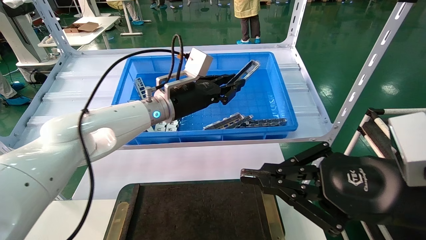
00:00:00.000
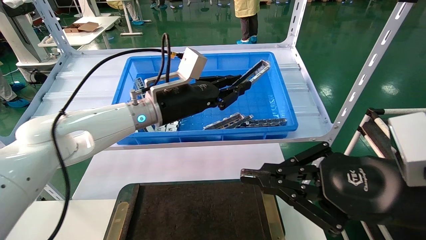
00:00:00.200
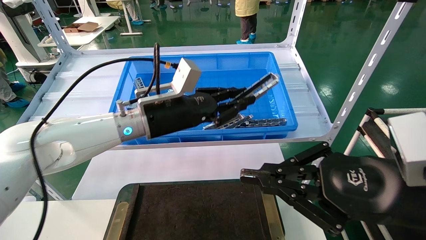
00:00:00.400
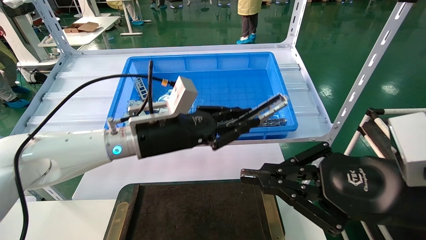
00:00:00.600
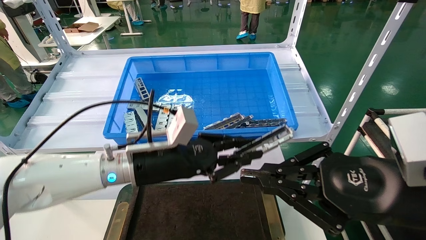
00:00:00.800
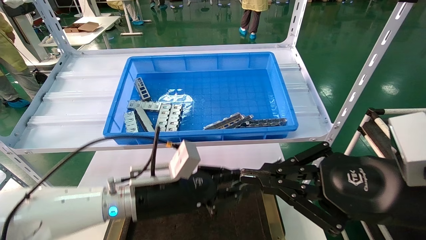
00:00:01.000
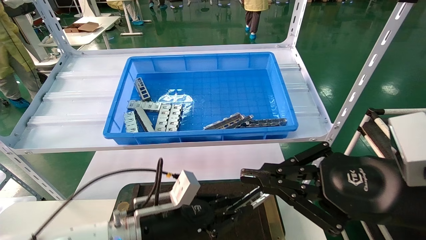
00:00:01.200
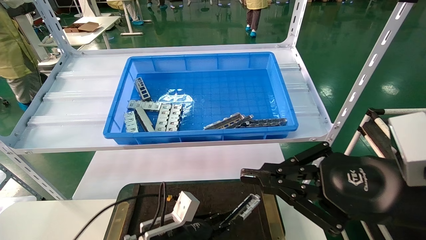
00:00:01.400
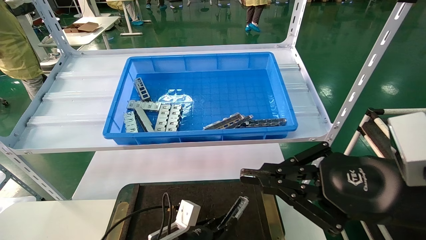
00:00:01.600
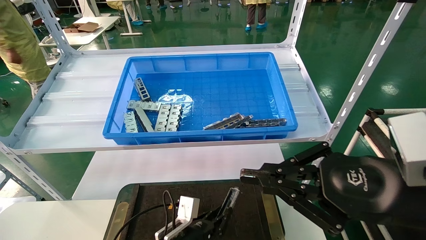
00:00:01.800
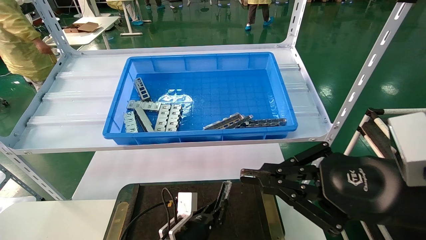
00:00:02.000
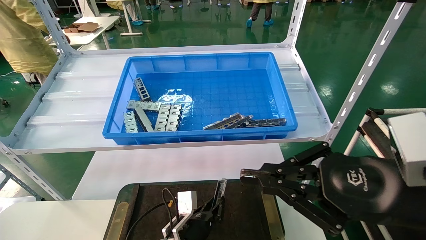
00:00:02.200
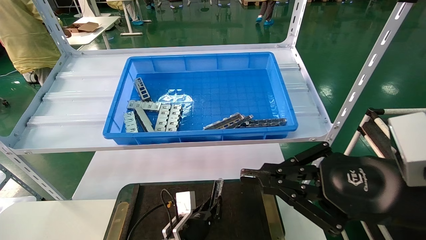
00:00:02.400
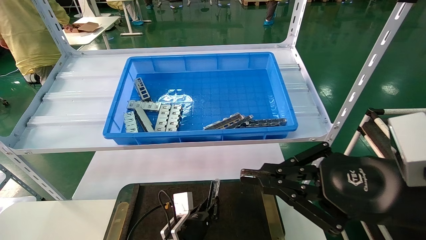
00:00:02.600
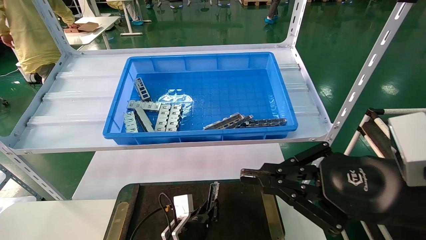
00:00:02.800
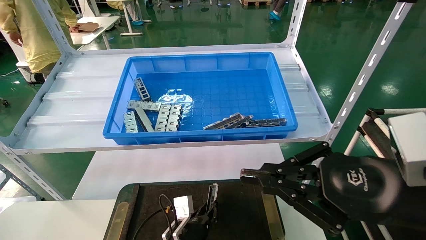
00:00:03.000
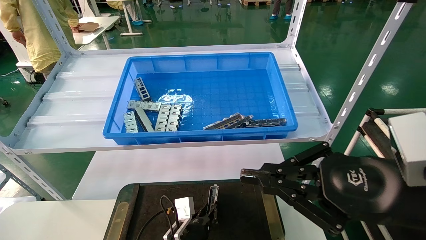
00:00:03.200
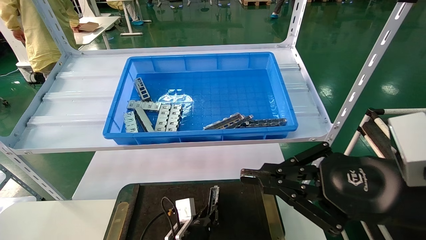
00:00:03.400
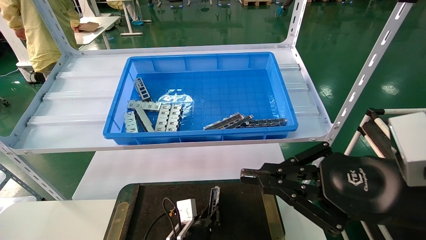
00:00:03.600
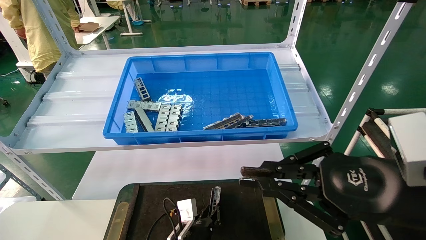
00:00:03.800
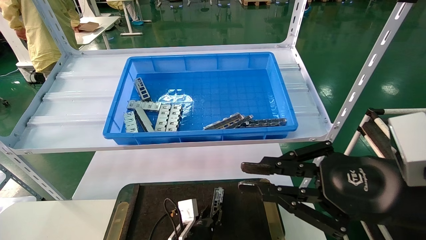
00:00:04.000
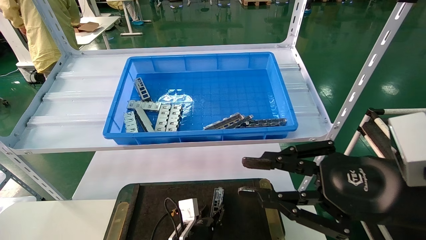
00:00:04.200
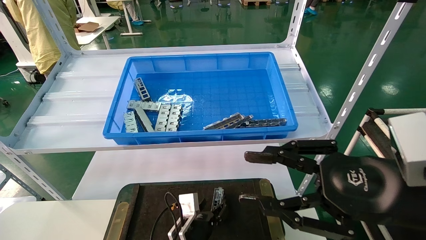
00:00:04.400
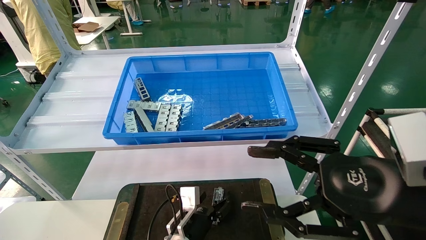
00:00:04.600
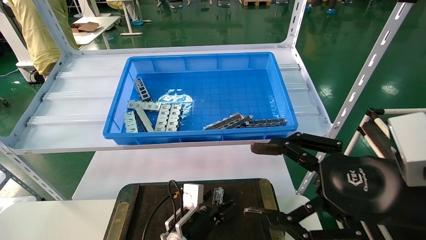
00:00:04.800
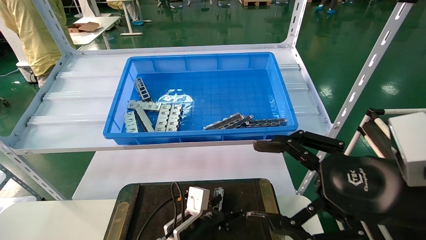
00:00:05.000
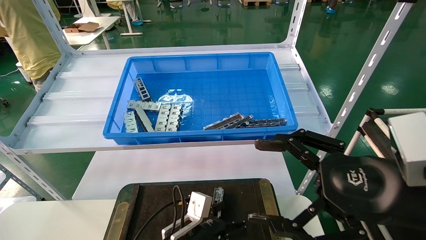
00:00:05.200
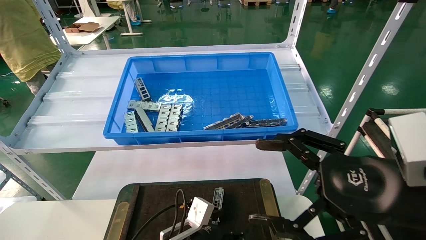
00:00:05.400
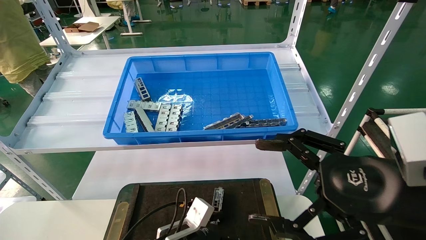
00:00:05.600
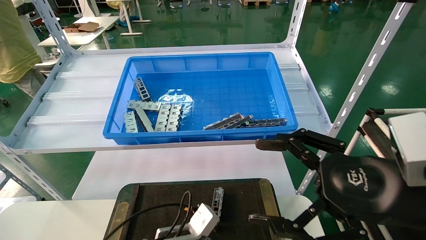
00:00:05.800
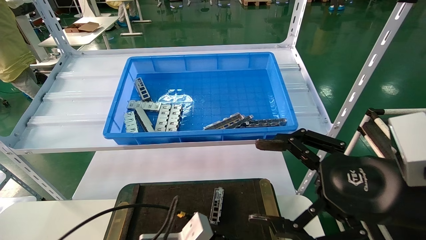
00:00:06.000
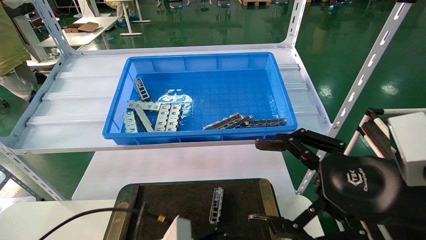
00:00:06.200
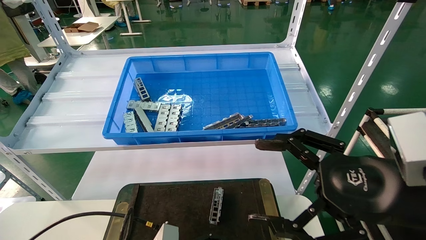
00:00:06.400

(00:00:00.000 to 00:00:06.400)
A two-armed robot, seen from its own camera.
Task of the whole recording: Grasp the part with one hand and place it on the black container.
Step, 00:00:00.400 - 00:00:04.200: Place the front USB bracket into the box.
00:00:00.000 - 00:00:01.600: The left gripper is displaced downward by roughly 30 cm.
00:00:01.600 - 00:00:03.200: The left gripper moves downward, approximately 5 cm.
00:00:03.200 - 00:00:04.800: The left gripper opens up, while the right gripper opens its fingers.
00:00:04.800 - 00:00:06.400: The left gripper shifts about 15 cm backward, upward and to the left.
